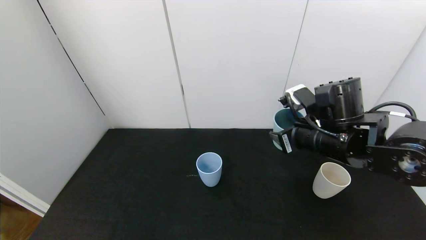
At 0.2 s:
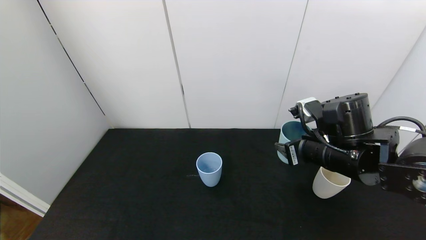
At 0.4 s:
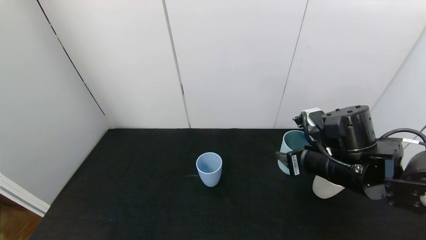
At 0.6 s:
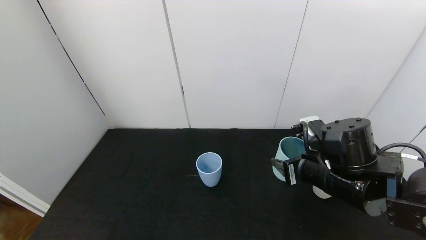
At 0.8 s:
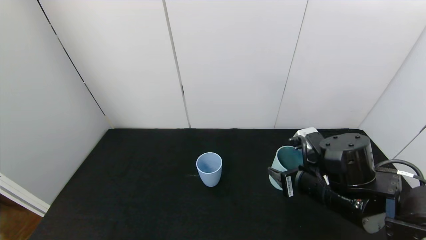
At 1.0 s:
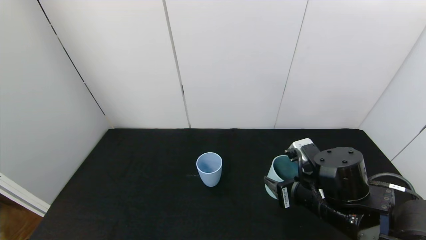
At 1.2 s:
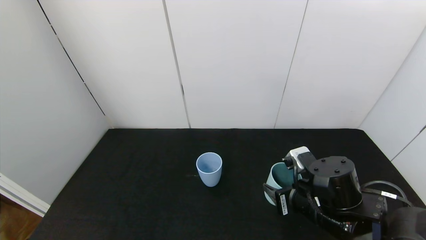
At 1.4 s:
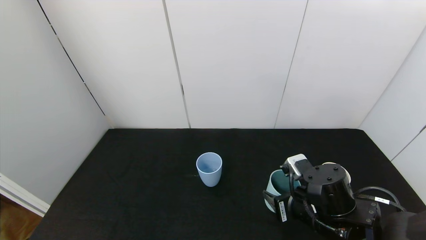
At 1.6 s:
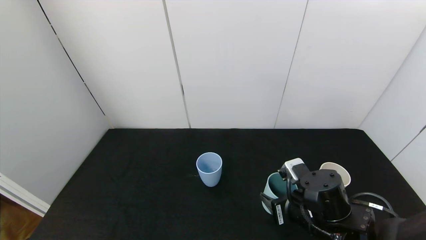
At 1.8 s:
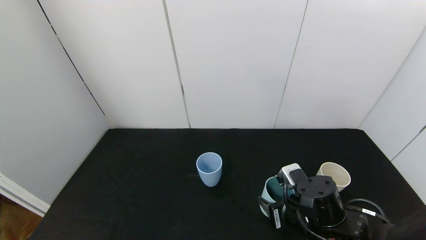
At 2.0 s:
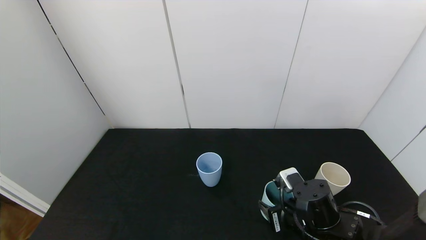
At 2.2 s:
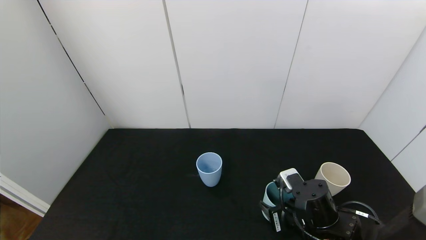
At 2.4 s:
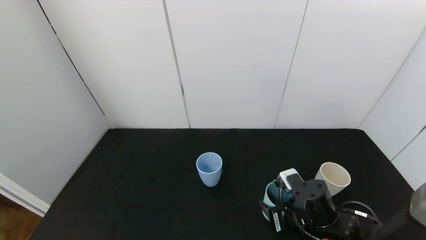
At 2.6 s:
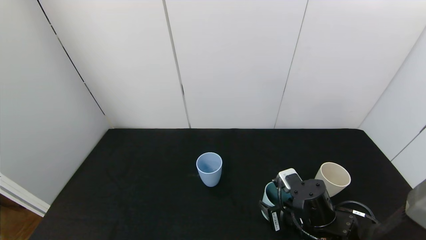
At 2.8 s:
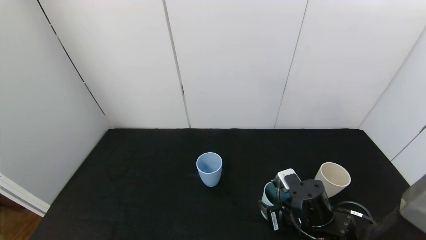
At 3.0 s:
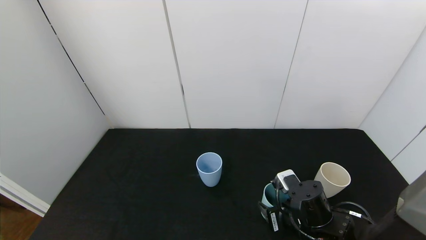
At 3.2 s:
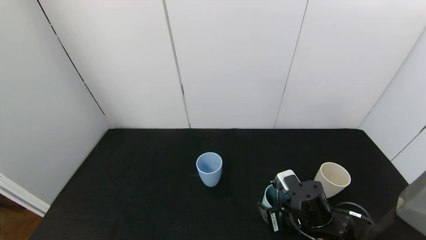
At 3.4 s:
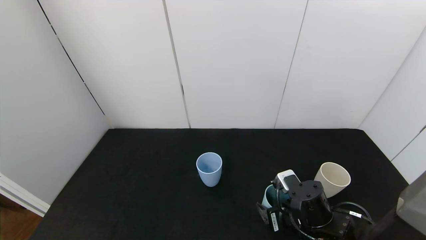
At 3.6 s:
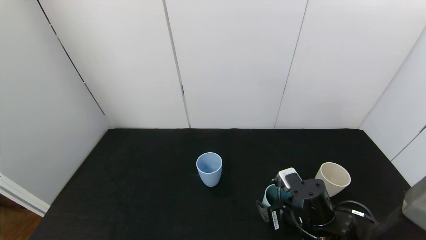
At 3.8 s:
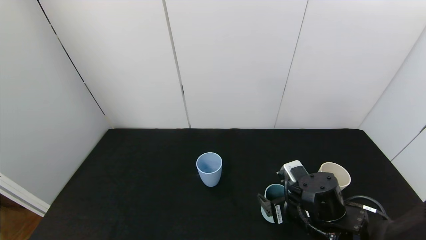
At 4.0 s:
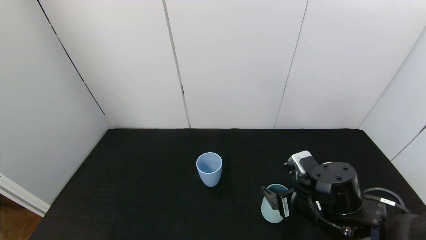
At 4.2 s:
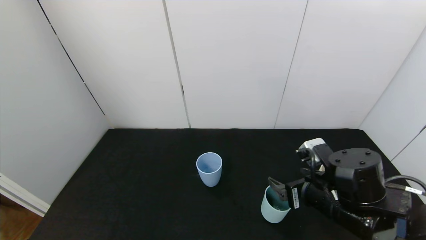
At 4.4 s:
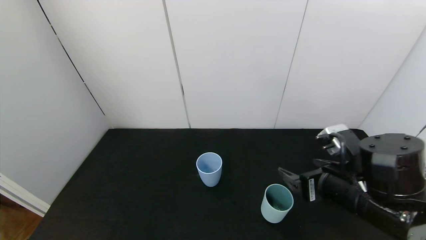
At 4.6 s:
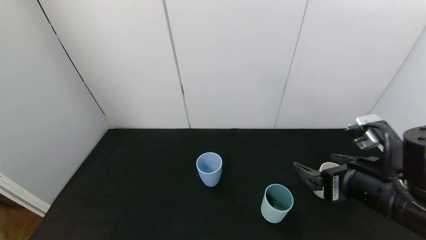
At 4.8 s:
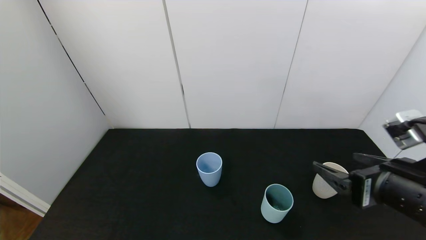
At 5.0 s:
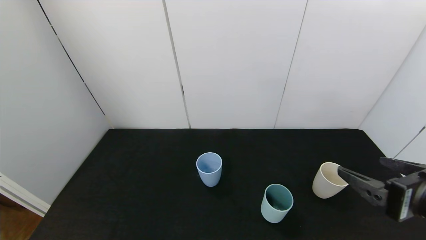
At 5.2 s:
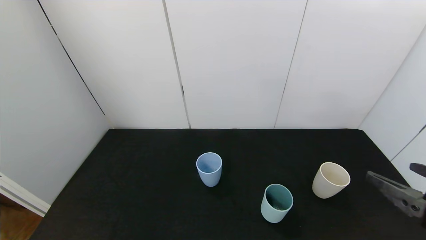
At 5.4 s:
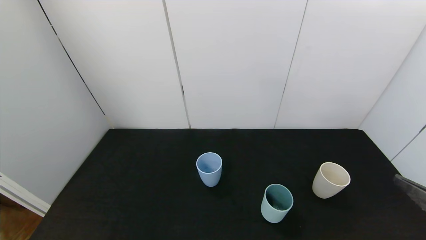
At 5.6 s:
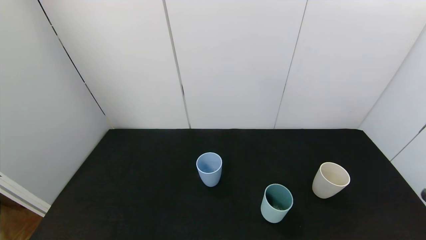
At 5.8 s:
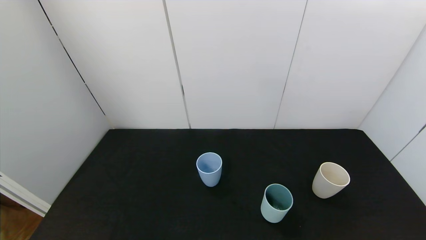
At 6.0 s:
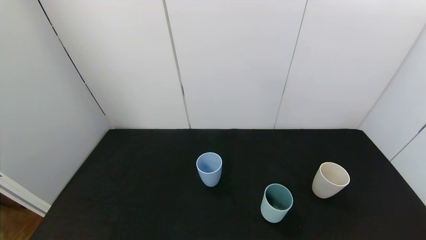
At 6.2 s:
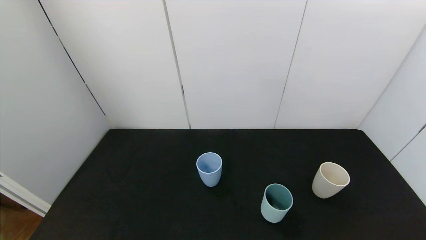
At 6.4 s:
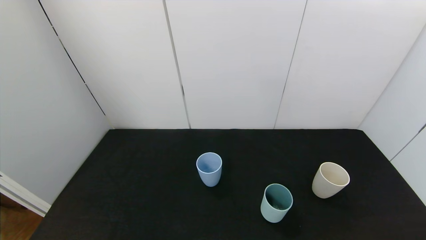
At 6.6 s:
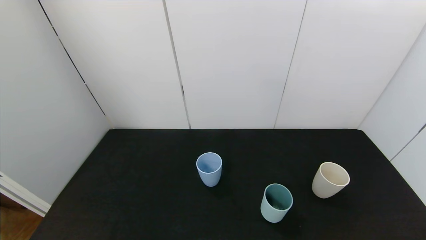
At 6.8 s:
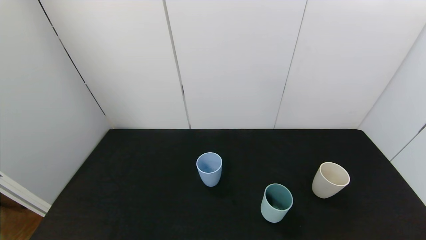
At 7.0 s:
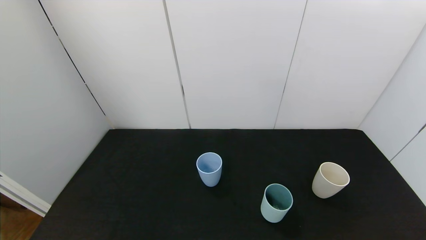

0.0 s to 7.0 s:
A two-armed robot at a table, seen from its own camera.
Task of the whole recording: use the gripper to pour the water into the other two cups on black table.
Step, 0.0 to 4.0 s: Place the green cup with the right gripper.
0.0 to 1.4 s: The right gripper is displaced downward and backward by some 15 cm.
1.4 to 2.8 s: The right gripper moves some 5 cm.
2.8 to 4.2 s: The right gripper moves upward, approximately 10 cm, and opens up.
4.2 to 5.6 s: The right gripper heads backward and to the right, covering approximately 20 cm.

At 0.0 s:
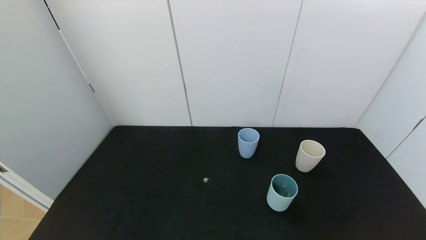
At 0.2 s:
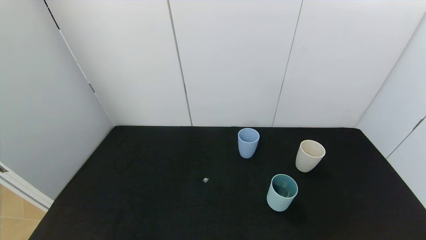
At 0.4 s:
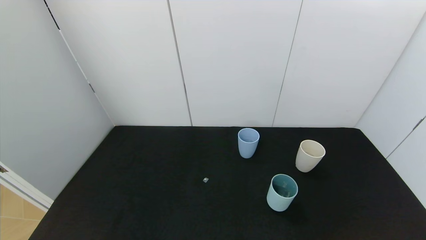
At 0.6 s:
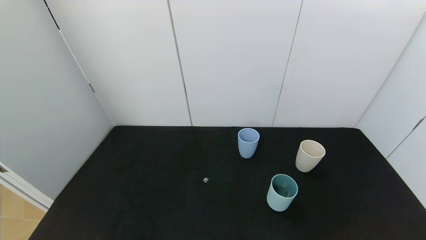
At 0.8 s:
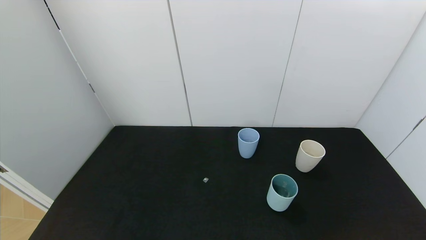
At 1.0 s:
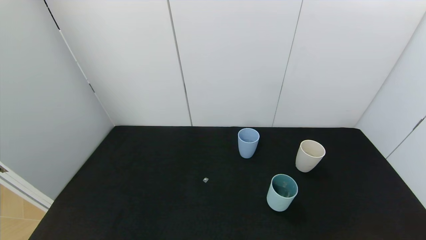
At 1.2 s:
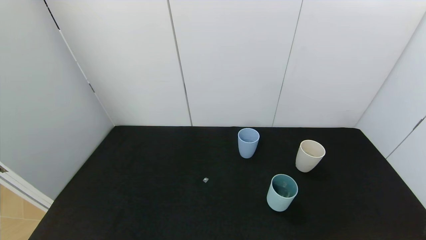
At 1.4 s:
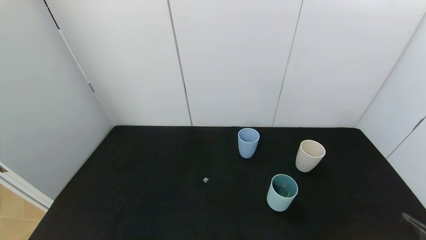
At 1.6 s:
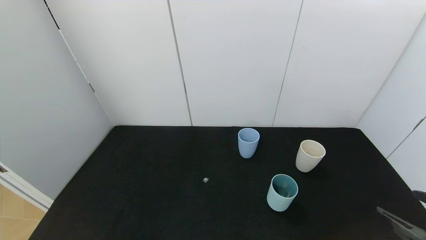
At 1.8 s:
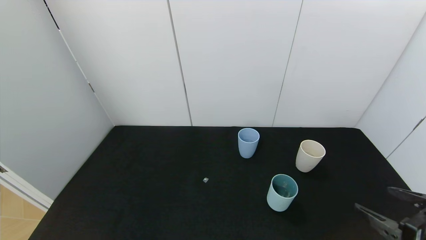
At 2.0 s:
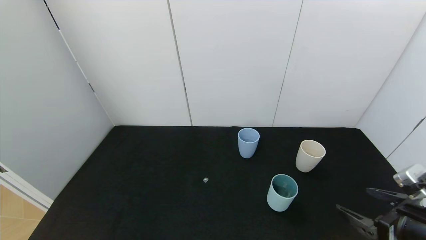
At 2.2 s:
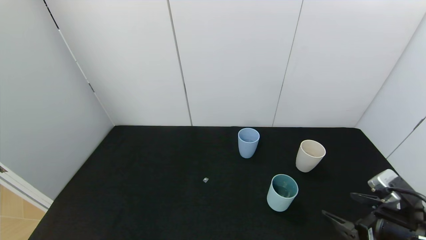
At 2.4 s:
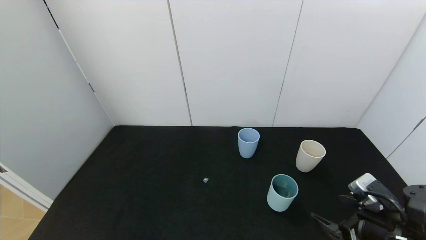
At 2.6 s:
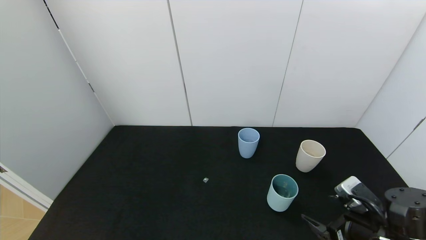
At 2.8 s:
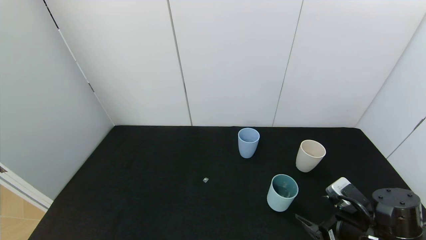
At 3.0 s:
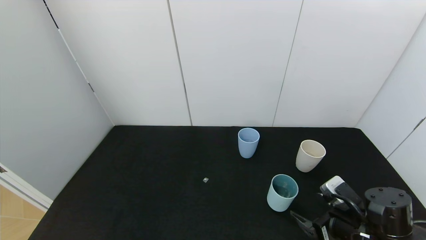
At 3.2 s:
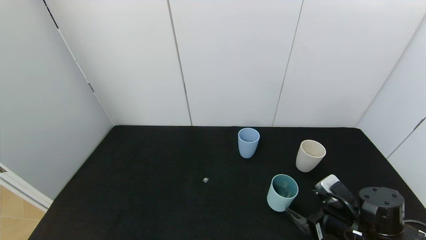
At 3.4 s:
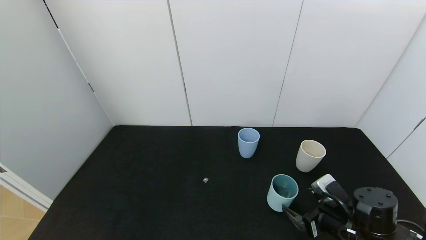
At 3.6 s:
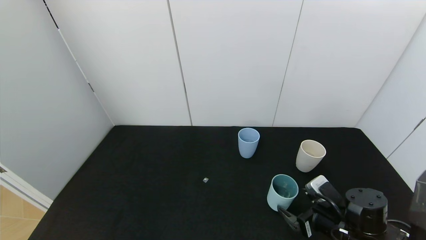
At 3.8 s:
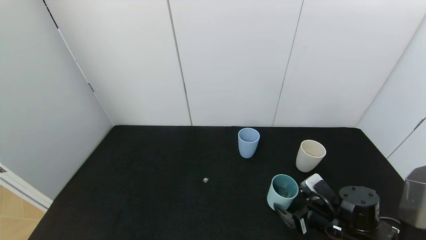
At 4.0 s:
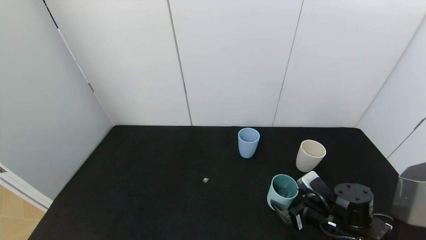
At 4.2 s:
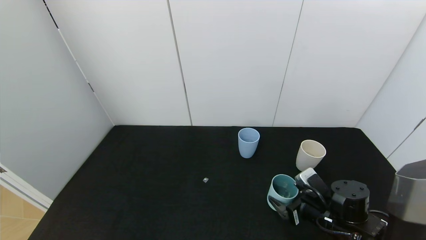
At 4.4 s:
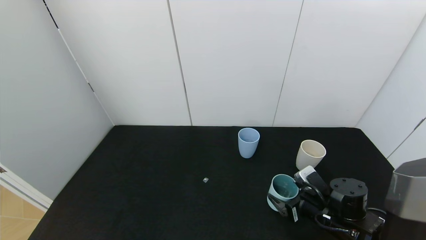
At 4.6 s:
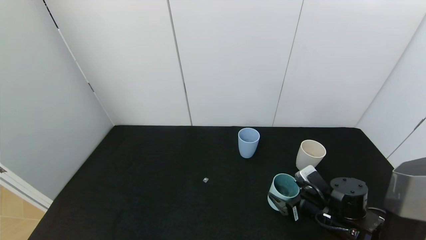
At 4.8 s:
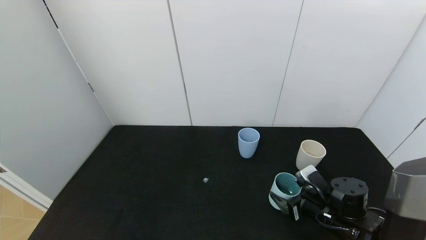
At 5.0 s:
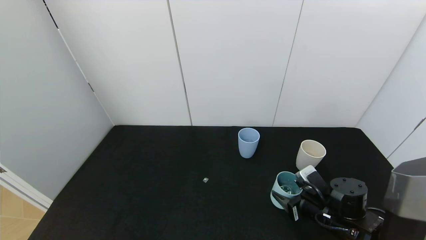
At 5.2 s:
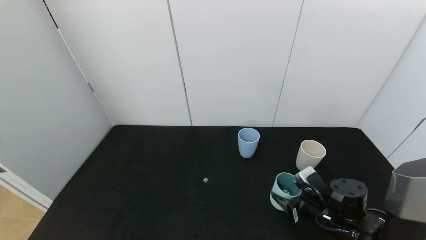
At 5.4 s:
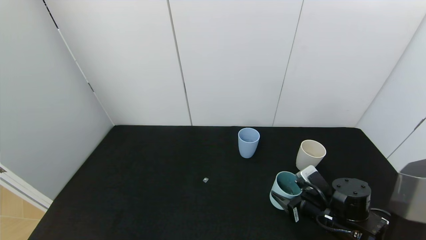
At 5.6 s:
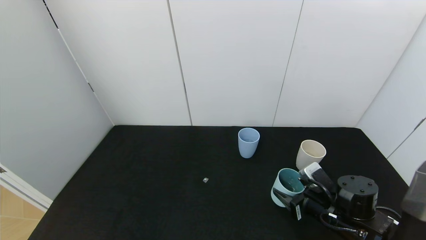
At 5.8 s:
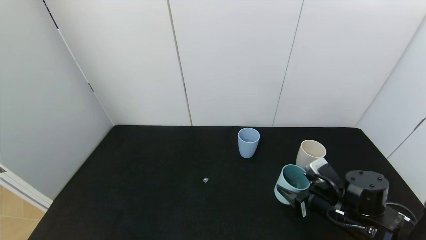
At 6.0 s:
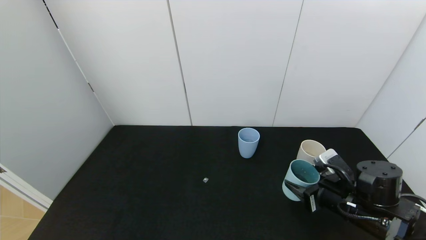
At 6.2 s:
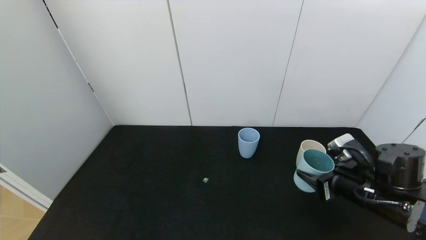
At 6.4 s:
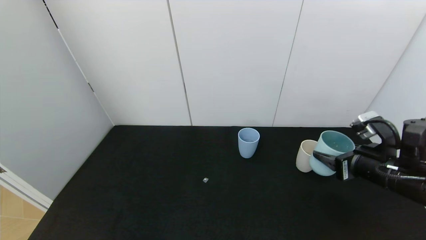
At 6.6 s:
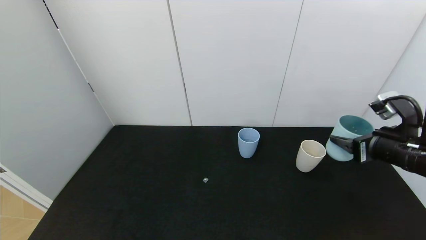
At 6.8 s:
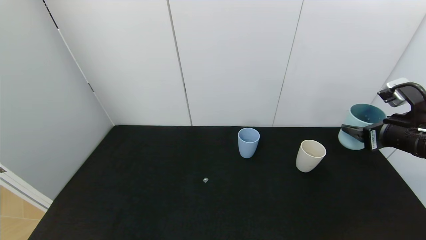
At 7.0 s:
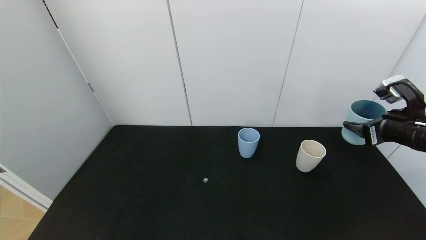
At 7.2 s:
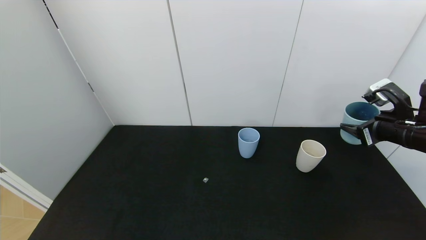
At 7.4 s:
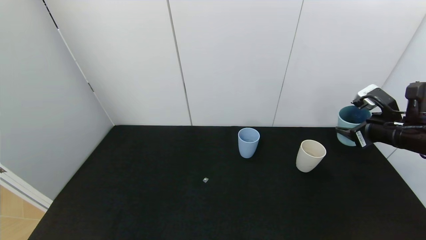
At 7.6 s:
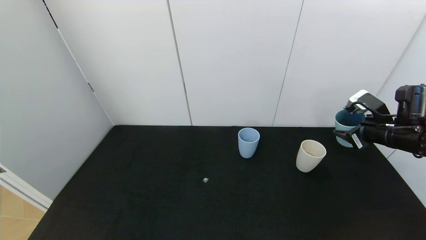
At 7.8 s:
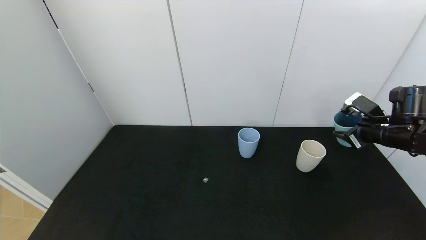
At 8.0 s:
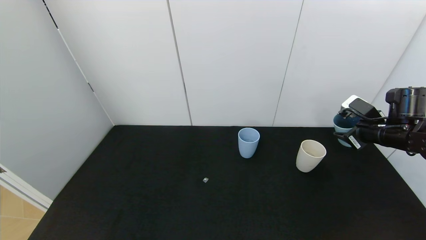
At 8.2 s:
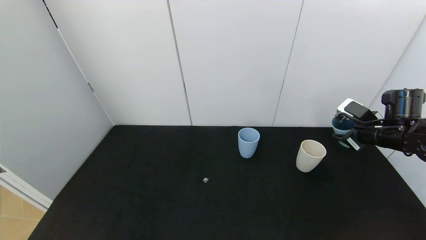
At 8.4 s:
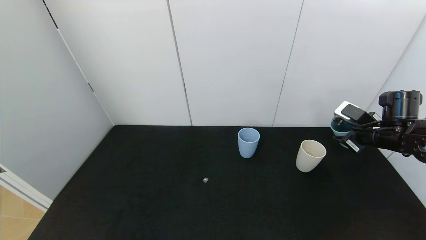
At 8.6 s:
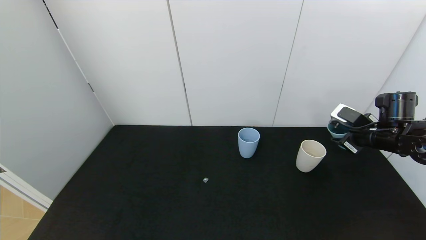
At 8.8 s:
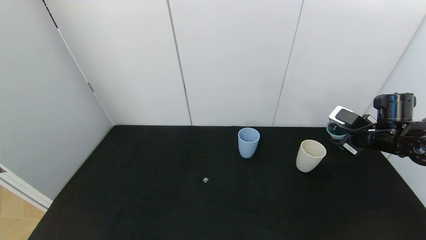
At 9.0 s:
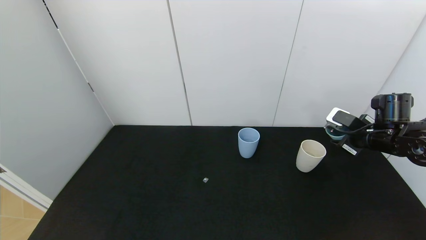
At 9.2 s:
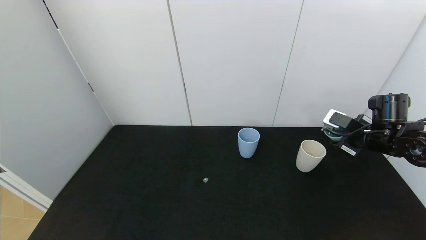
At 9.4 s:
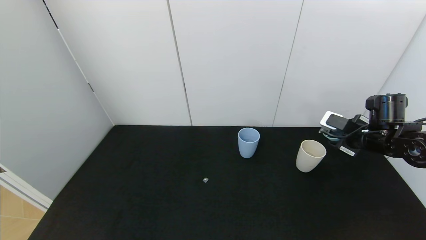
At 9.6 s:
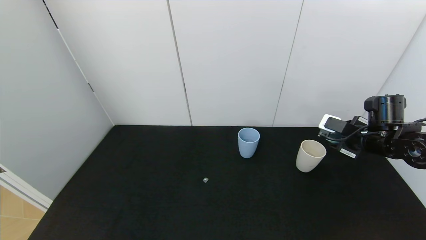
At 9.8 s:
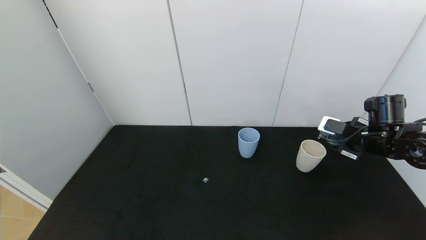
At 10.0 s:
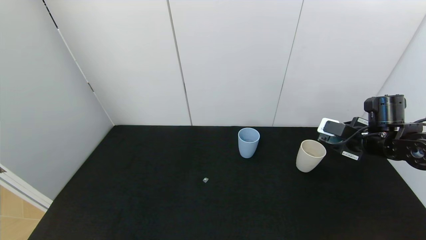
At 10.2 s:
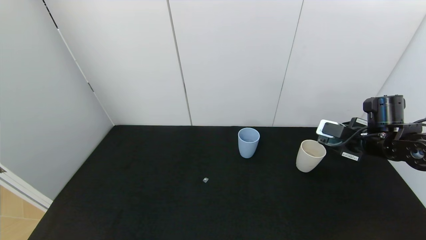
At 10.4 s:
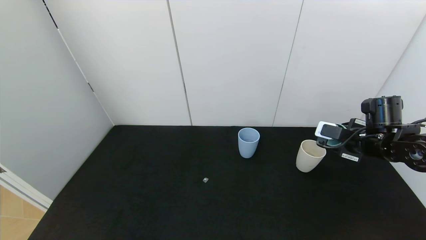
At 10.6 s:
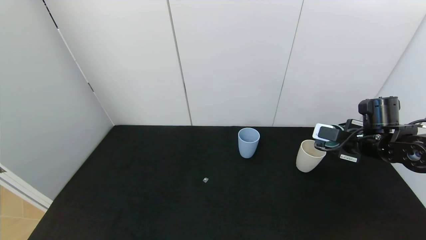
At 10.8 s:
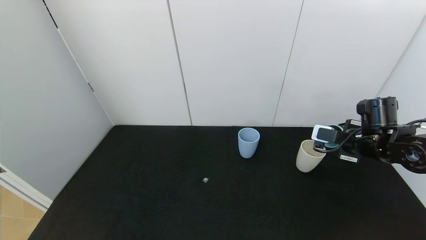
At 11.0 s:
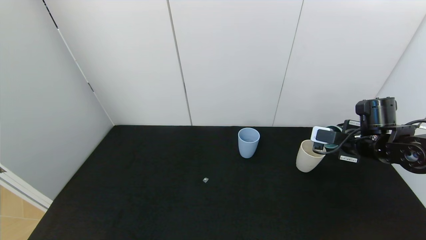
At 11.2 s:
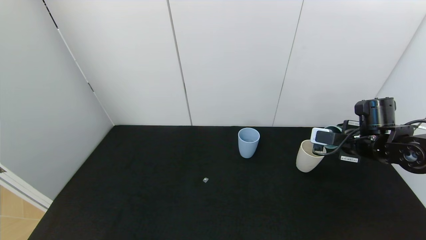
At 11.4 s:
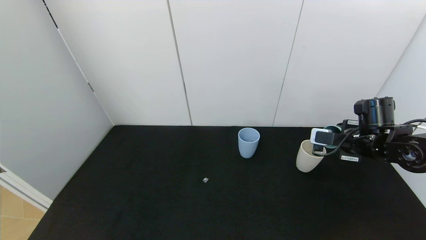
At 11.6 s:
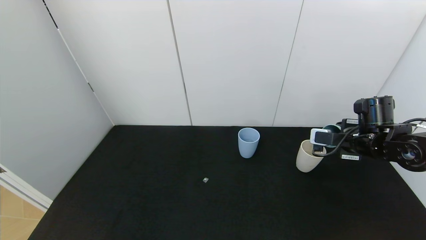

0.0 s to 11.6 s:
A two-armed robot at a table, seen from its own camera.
Task of the whole recording: use the gripper to pour the water into the other two cups on black table.
Step, 0.0 to 5.0 s: Grasp the green cup with the right gripper.
1.4 to 2.8 s: The right gripper is displaced forward, downward and to the left by about 20 cm.
2.8 to 4.4 s: The right gripper heads forward, covering roughly 5 cm.
4.4 to 5.8 s: The right gripper closes.
5.8 to 7.2 s: The right gripper travels upward and to the right by some 20 cm.
7.2 to 8.8 s: The right gripper is displaced forward and downward by some 10 cm.
8.8 to 10.2 s: The grippers move only a little.
10.2 to 11.6 s: The grippers move only a little.
